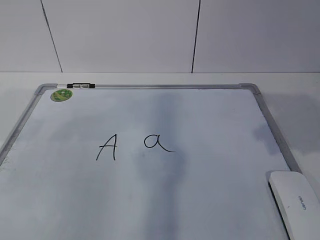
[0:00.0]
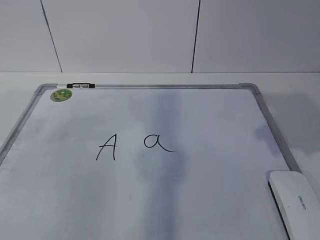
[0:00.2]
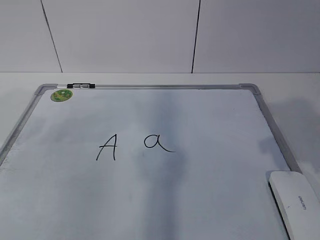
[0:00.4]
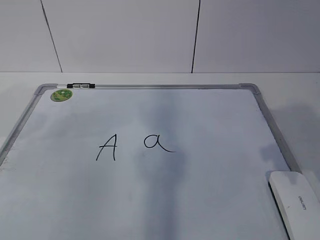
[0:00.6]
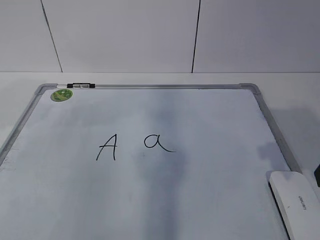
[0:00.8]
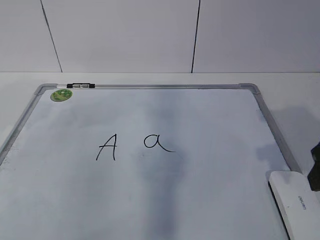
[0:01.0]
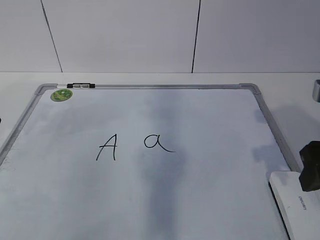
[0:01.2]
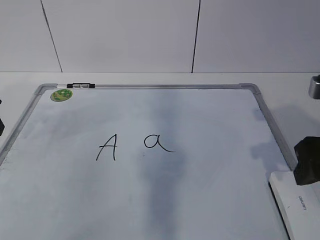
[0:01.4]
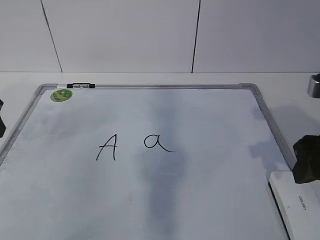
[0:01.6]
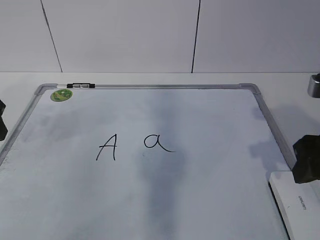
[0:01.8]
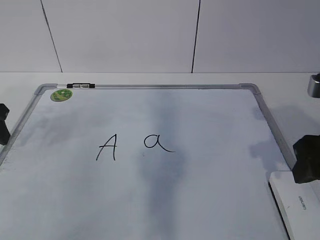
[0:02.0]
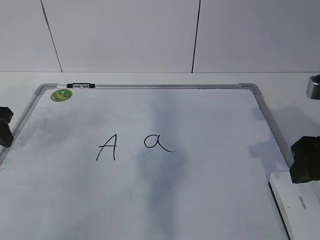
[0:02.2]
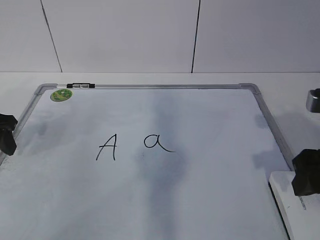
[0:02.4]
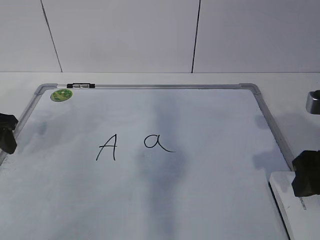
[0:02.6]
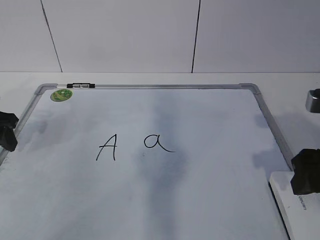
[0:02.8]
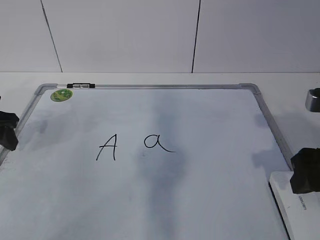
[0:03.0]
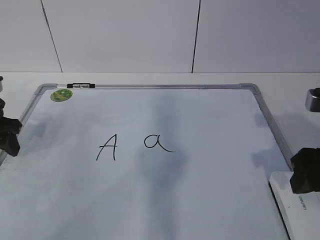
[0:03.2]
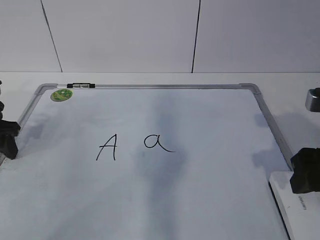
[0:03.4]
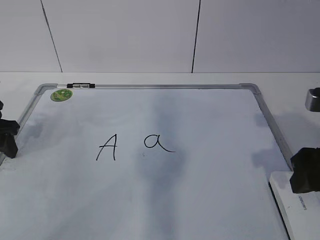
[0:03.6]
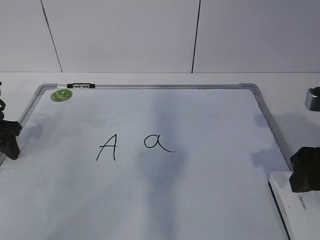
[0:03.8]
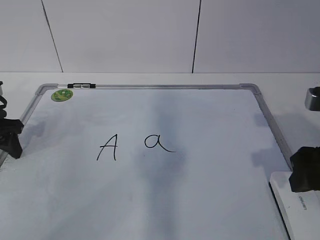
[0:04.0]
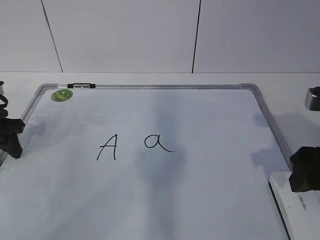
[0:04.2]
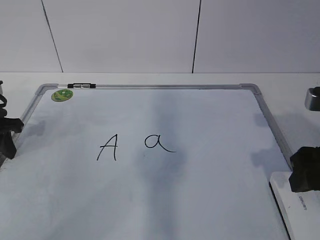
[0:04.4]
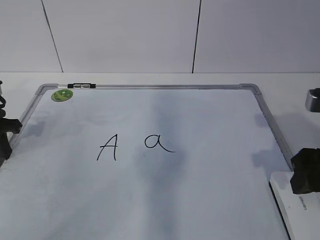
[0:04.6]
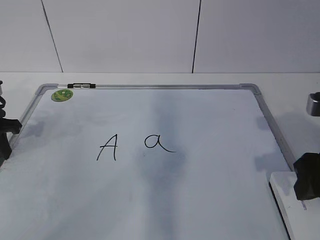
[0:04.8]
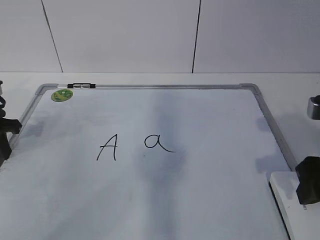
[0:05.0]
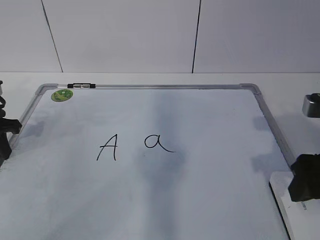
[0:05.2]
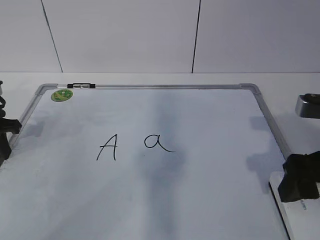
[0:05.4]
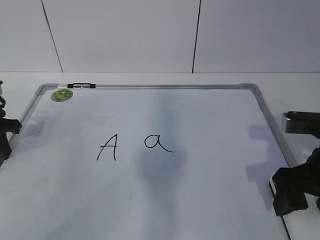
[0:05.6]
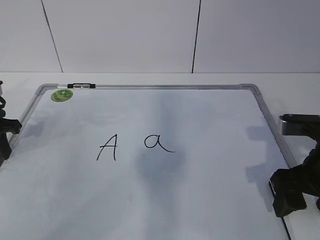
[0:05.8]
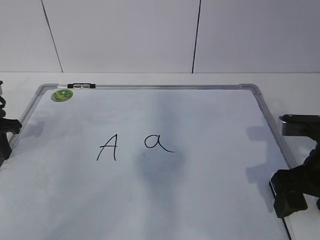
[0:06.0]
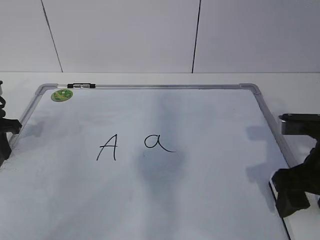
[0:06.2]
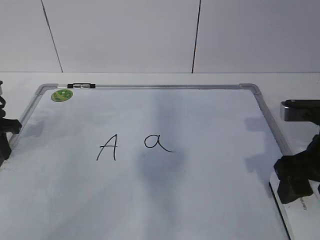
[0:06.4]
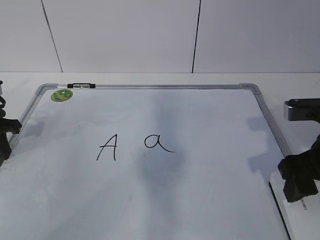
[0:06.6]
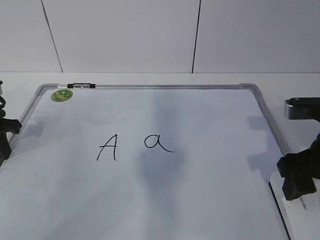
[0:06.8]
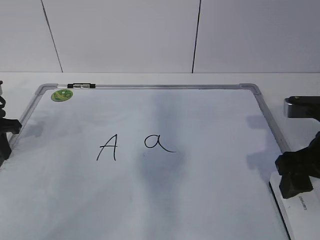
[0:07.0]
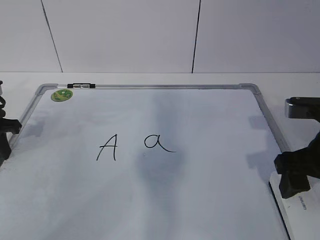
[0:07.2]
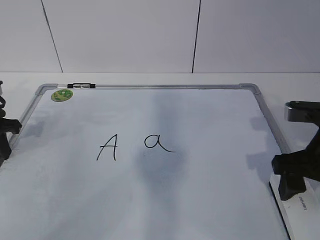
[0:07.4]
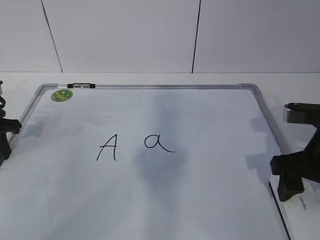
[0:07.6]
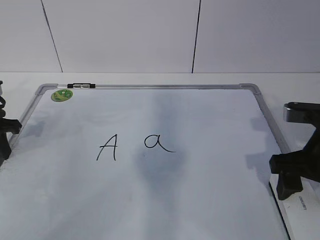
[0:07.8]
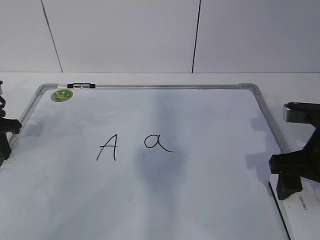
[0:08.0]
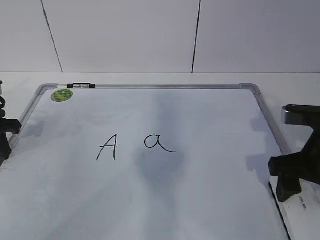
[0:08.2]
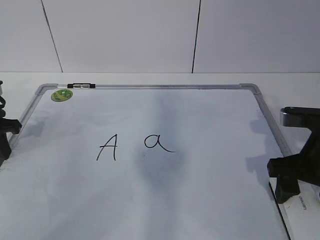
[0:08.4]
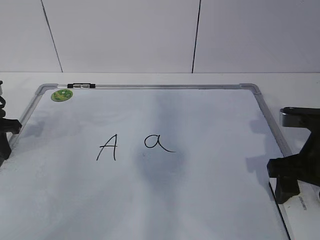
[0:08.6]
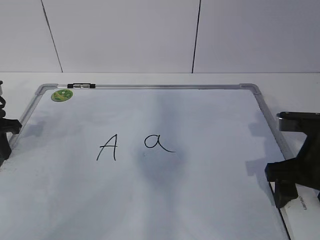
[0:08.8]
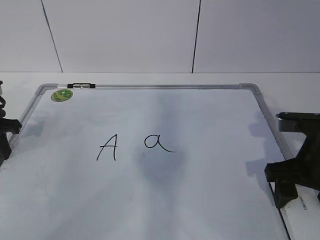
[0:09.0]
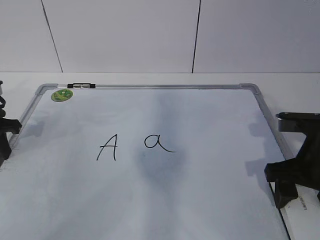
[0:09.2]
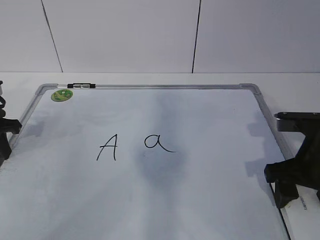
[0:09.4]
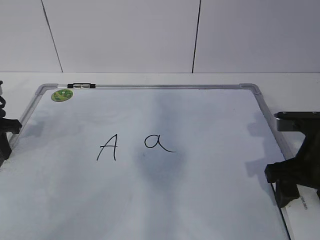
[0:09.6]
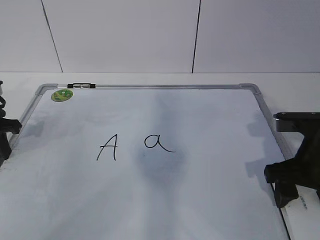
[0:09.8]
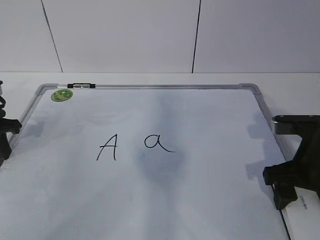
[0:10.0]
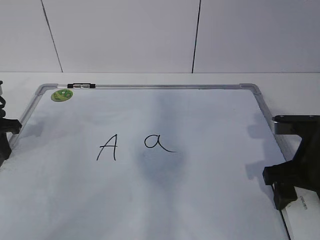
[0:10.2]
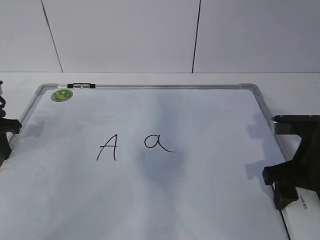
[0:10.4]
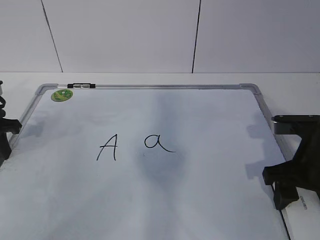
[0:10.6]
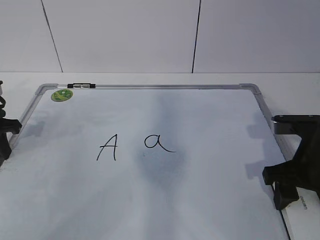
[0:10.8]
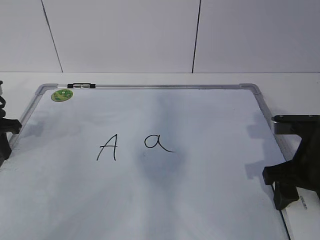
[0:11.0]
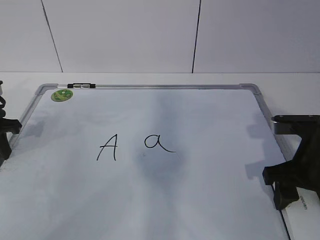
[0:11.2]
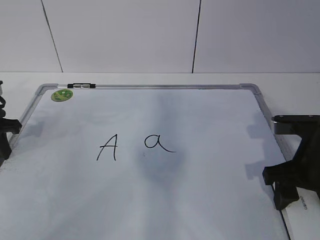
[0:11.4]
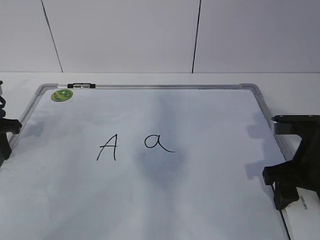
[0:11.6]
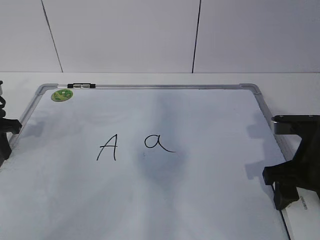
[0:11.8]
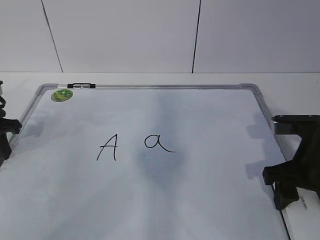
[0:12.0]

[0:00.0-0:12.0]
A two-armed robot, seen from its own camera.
Task of the whole recording: pick up the eraser on the blackboard and erase the letter "a".
Step, 0:00.0 to 0:02.6: Hold the drawing board steady with your left hand.
Step, 0:03.0 to 0:07.8: Grab the eraser with your right hand.
0:00.0 to 0:01.6: The right gripper travels downward by approximately 10 cm.
0:01.6 to 0:03.0: The left gripper travels downward by about 5 cm.
0:03.0 to 0:04.4: The left gripper closes its fingers.
0:04.4 to 0:06.0: The right gripper opens its fingers.
0:06.0 to 0:07.6: The right gripper closes, then opens again.
0:07.6 to 0:09.0: The grippers move only a little.
0:09.0 to 0:10.4: The right gripper closes.
0:10.4 to 0:12.0: Both grippers stay about where they are.

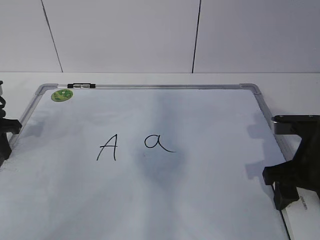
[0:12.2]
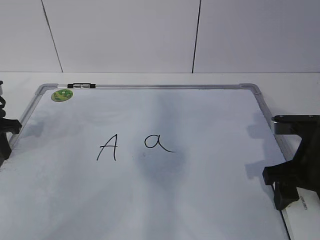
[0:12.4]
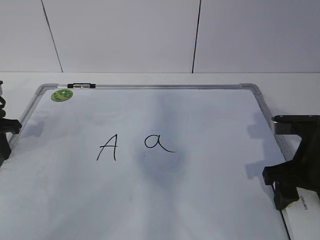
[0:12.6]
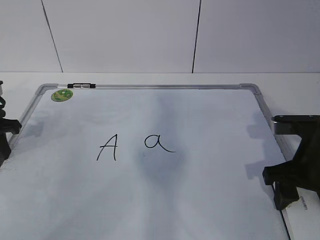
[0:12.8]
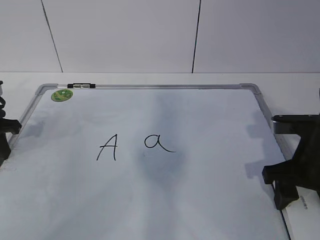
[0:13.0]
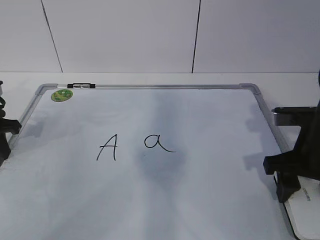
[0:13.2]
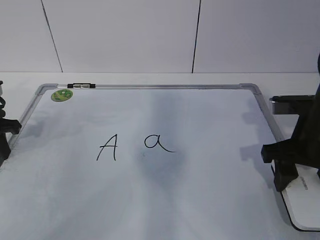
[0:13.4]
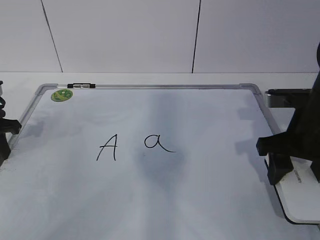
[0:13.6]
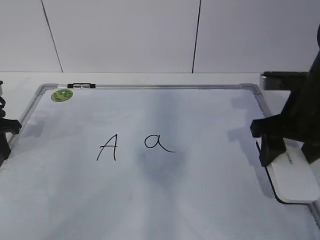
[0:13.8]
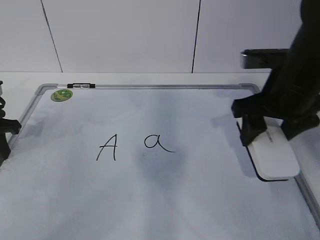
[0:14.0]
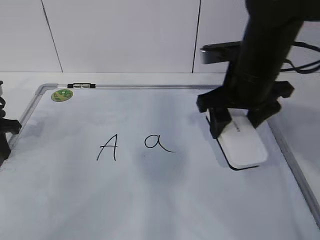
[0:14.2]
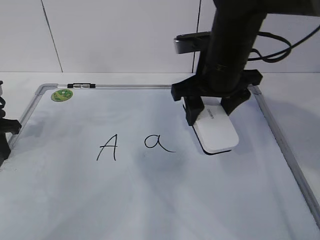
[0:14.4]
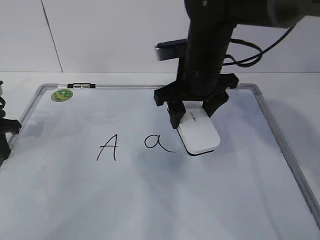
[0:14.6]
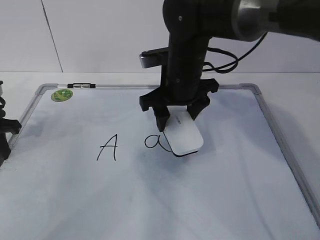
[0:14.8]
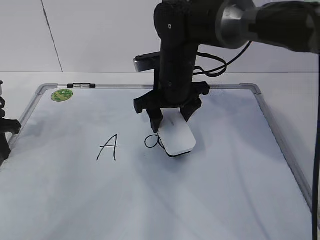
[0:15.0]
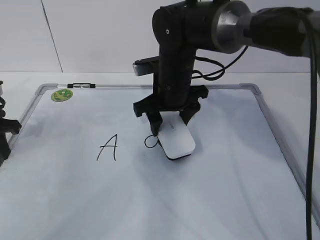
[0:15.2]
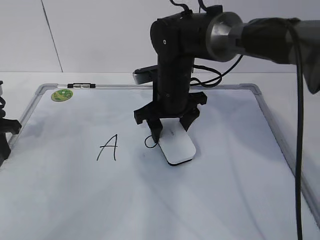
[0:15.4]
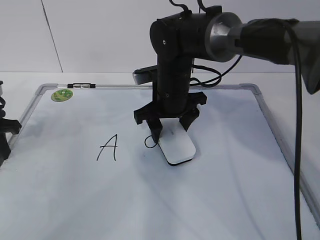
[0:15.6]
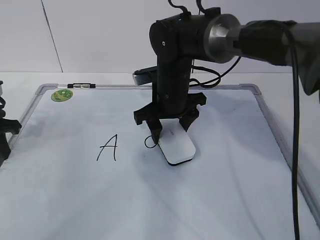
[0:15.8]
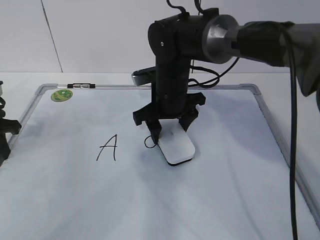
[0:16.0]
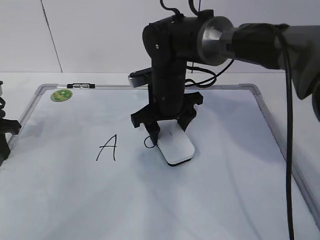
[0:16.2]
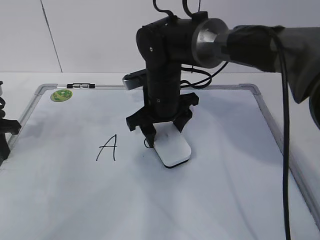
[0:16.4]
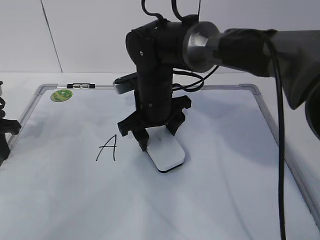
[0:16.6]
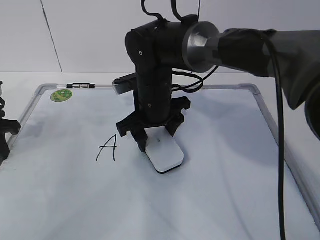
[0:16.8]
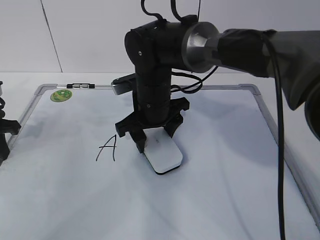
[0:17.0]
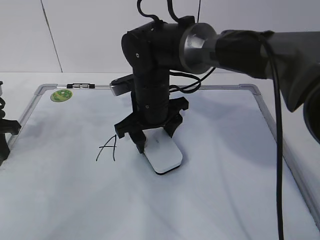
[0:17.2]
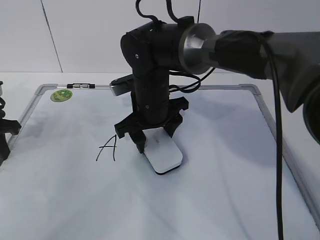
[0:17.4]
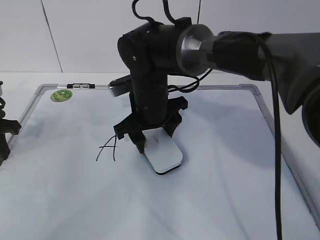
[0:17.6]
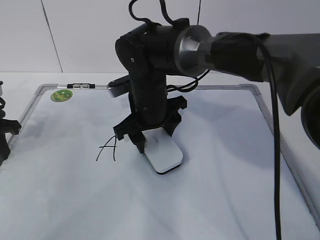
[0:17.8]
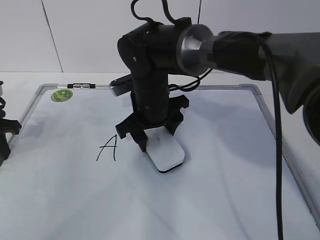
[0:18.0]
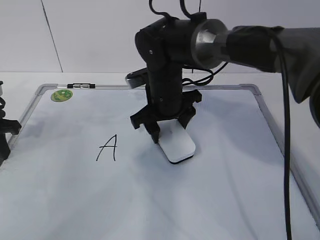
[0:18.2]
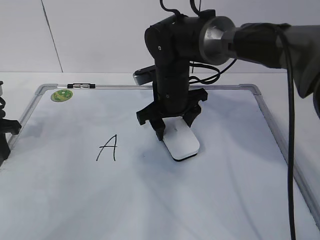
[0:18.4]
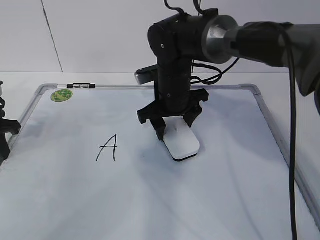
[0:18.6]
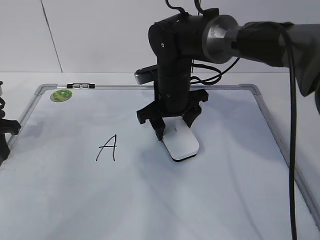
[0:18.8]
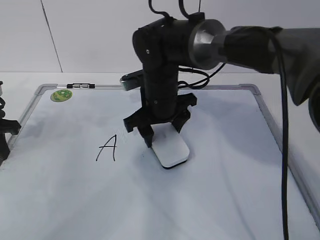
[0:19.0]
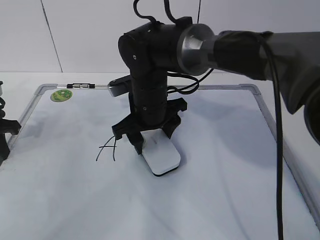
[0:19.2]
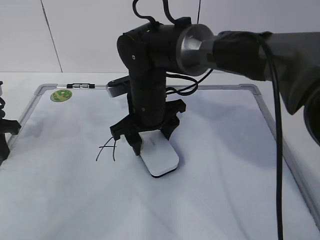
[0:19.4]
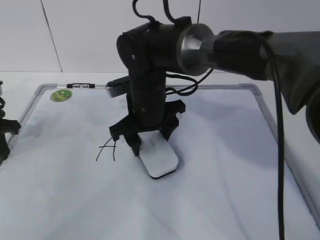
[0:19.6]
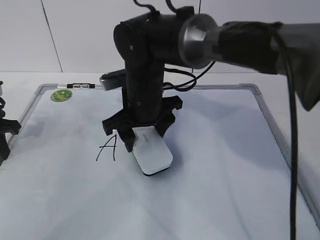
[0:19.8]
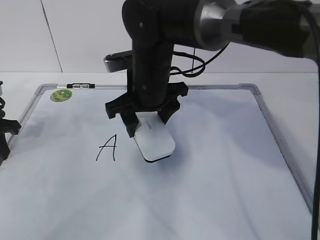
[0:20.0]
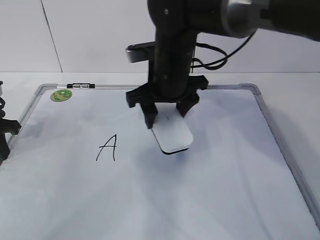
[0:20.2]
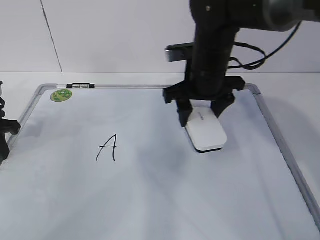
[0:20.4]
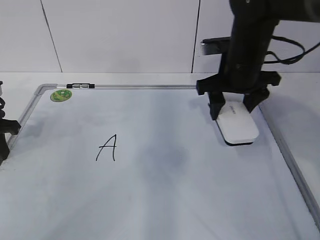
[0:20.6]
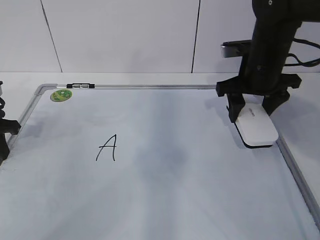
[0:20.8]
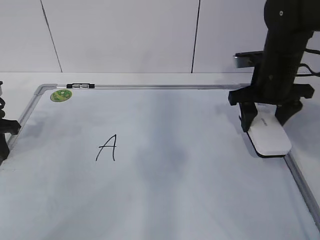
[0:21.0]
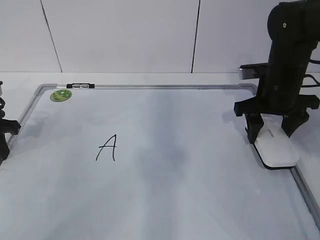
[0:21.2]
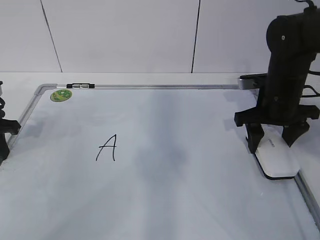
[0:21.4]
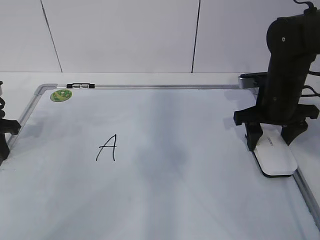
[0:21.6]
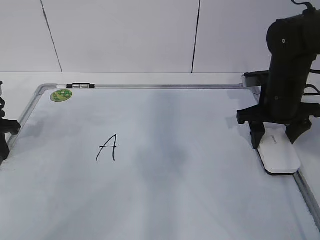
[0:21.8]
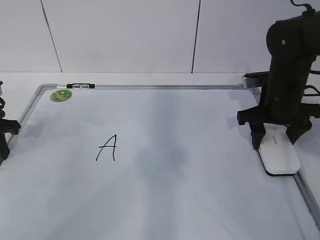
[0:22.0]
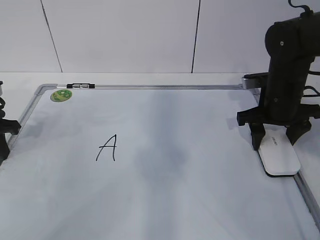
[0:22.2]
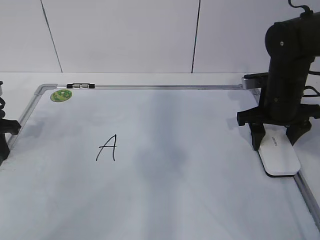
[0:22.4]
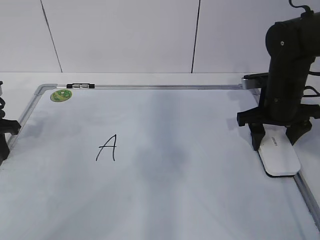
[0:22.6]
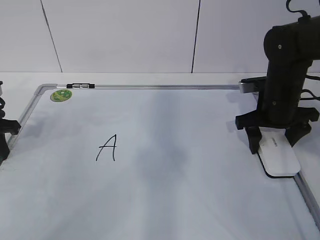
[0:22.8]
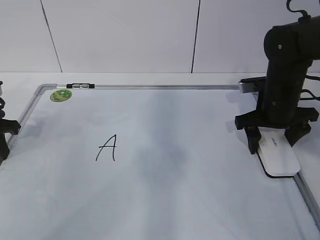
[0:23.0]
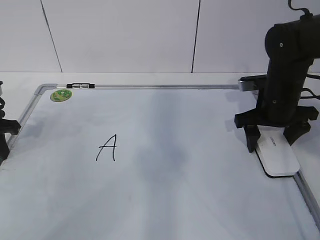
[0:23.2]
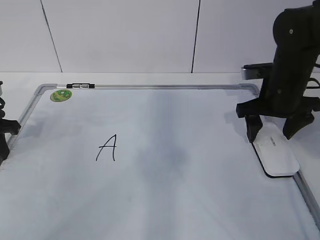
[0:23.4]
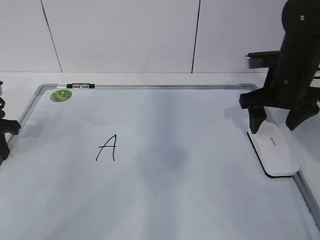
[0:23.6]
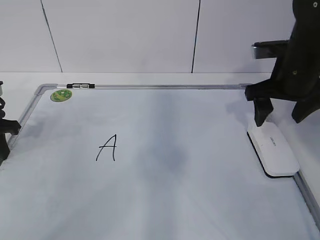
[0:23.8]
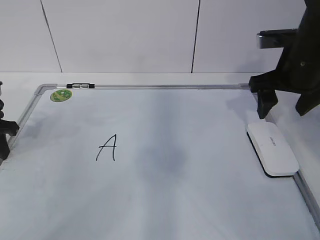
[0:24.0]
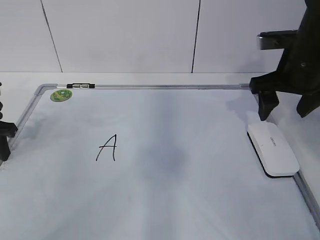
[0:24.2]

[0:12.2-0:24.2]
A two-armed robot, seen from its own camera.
Task of the whole recording: pick up the eraser on the blackboard and erase the letter "a".
Step, 0:12.2 to 0:15.2: Erase the letter a with your right hand.
Step, 0:15.4 to 0:18.2: Put down the eraser with your right hand.
0:12.2 to 0:13.8: The right gripper travels upward by about 5 cm.
0:13.8 to 0:15.2: The right gripper heads to the left and forward, covering about 20 cm.
0:16.6 to 0:18.2: The grippers stay close to where they were, moving slightly.
0:18.2 to 0:19.8: The right gripper changes place by some 5 cm.
0:19.8 to 0:21.2: The right gripper shifts roughly 25 cm to the right.
0:21.2 to 0:22.6: The grippers make only small movements.
0:22.6 to 0:24.2: The right gripper heads upward, covering some 10 cm, and opens up.
